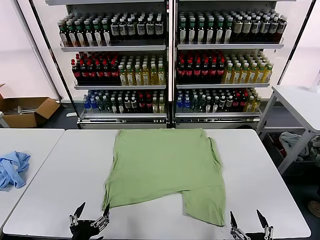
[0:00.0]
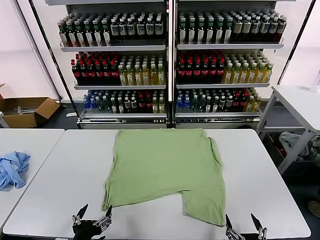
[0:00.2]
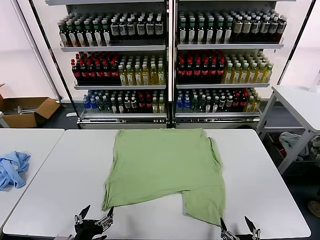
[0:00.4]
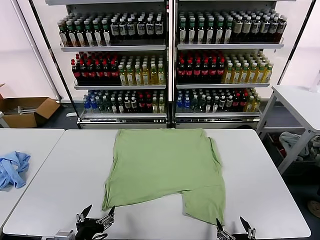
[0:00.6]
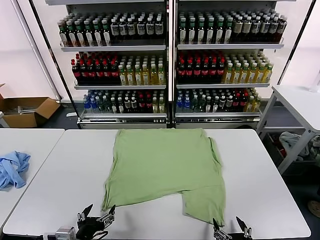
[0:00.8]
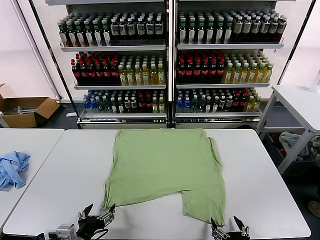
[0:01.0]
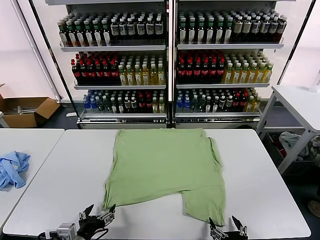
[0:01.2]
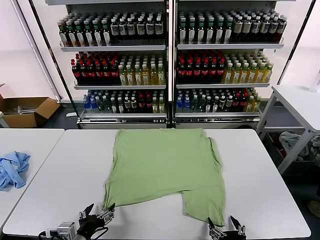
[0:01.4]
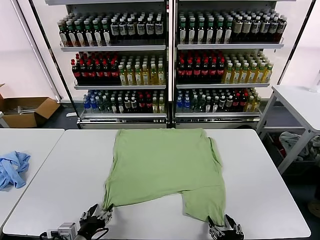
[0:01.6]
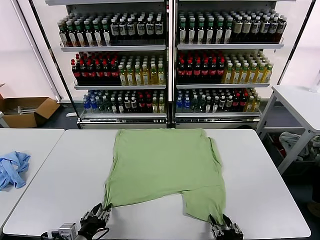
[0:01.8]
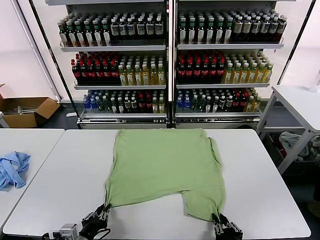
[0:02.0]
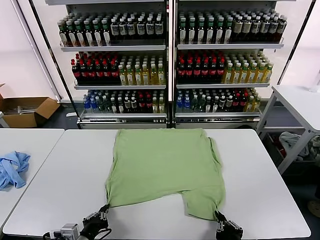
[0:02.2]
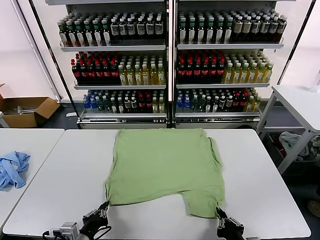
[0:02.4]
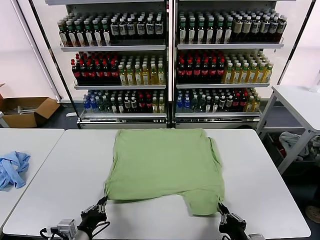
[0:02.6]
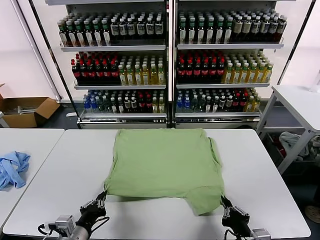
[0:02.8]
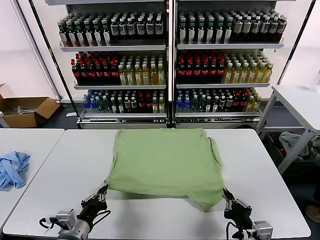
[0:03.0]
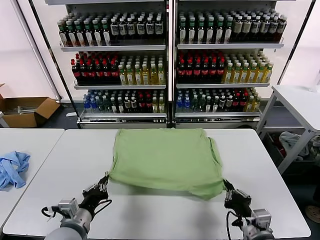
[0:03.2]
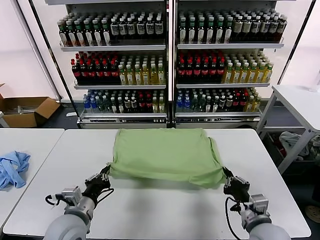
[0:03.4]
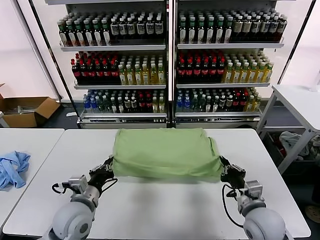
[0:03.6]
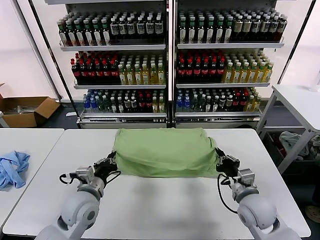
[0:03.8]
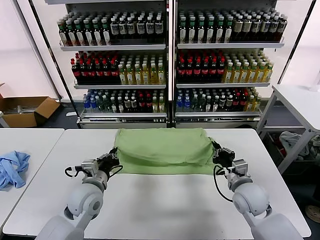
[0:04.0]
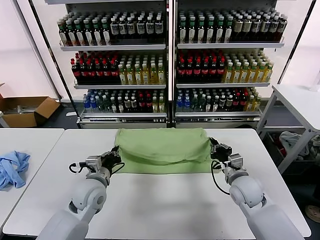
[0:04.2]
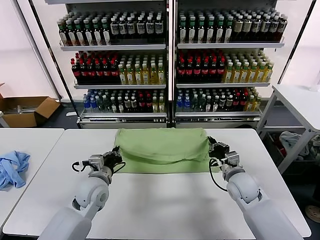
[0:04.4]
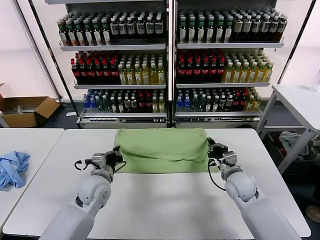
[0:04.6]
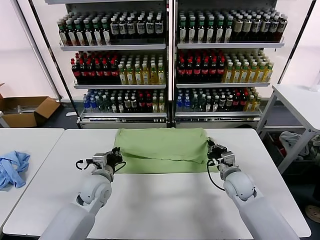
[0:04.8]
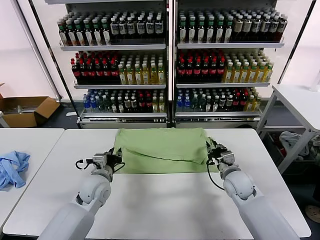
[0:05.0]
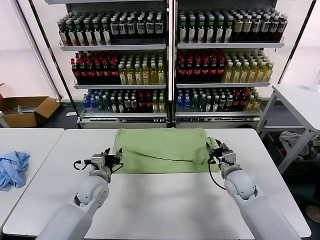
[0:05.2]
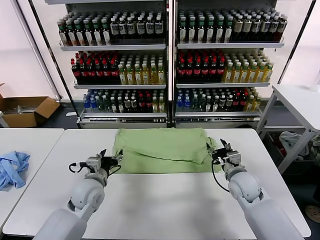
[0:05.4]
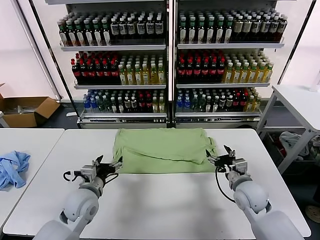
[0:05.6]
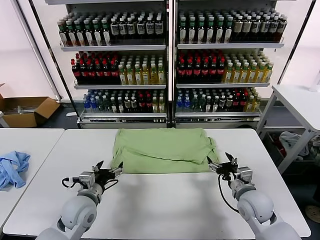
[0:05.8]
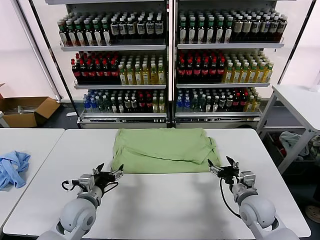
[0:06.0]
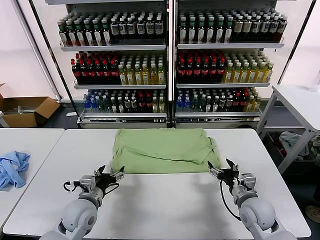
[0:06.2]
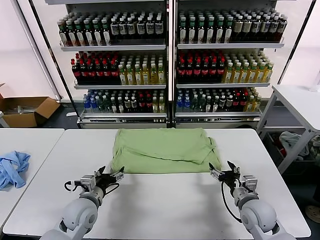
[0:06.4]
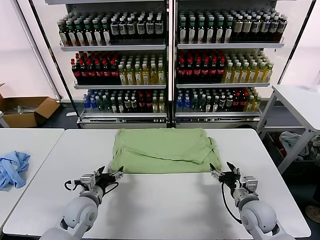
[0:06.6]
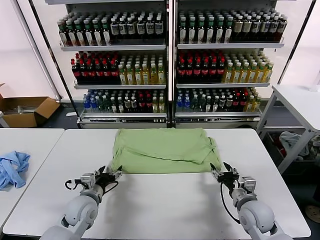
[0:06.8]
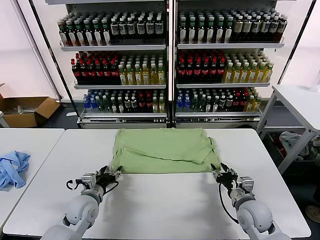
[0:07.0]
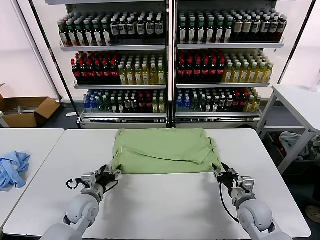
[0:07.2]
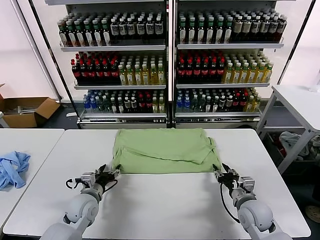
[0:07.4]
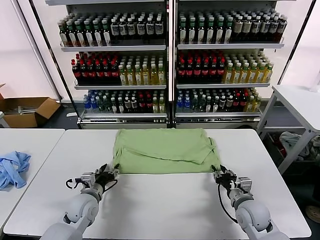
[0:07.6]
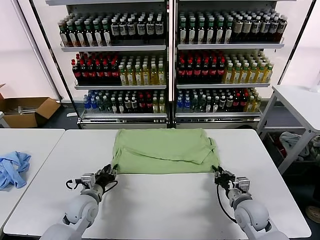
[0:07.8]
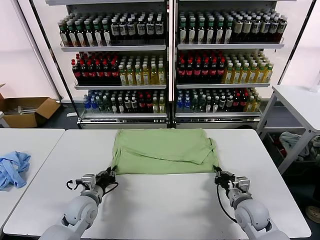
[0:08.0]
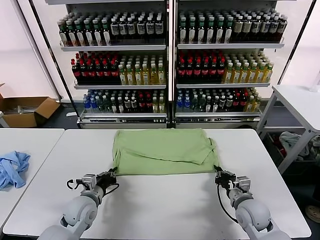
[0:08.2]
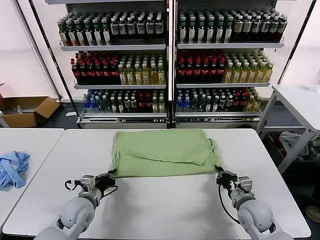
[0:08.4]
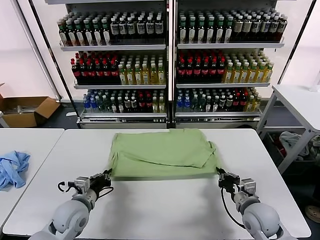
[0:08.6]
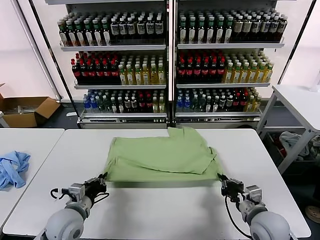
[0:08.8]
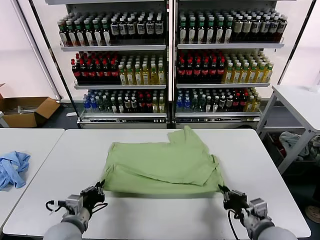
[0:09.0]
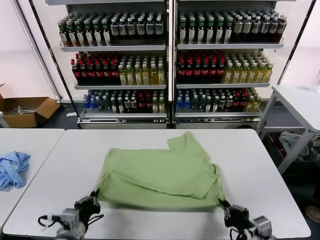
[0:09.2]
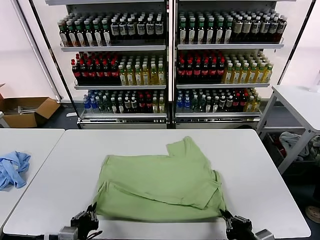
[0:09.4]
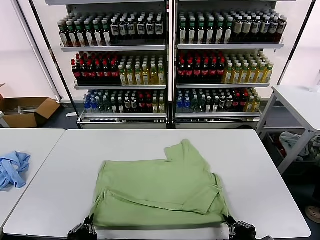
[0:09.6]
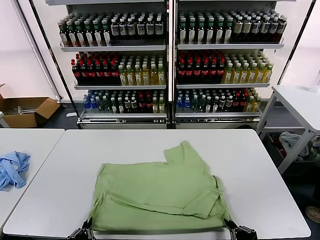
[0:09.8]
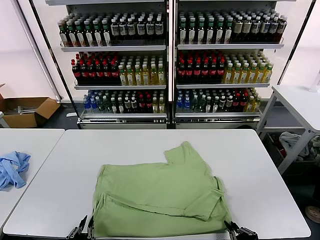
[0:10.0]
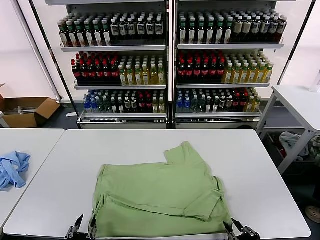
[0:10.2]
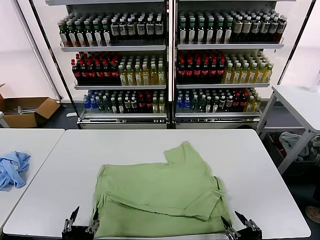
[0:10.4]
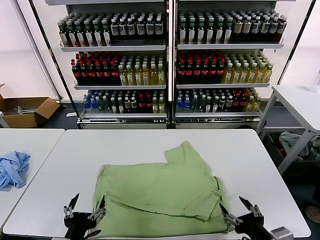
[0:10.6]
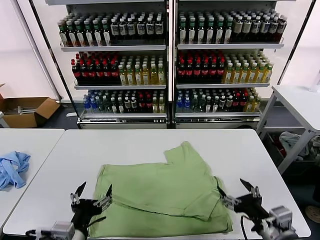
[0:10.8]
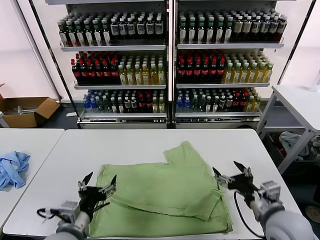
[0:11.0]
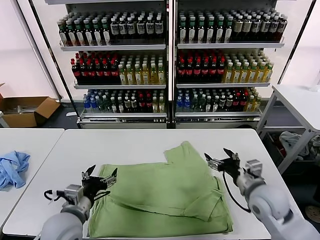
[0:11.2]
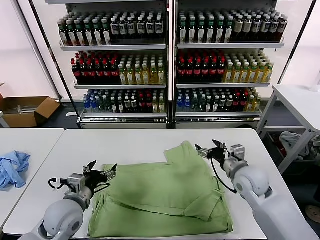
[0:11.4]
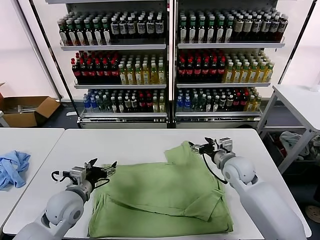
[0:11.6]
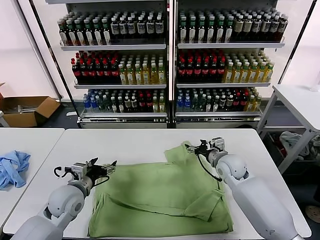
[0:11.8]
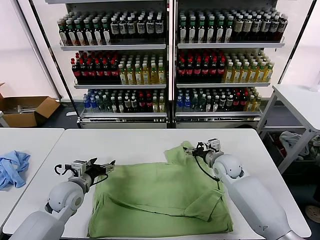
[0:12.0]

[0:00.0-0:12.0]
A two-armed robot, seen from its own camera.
Task of the whole recording: fold and organize the clothes.
Step, 0:00.0 to 0:02.0: use both grippers simultaneously to clamp the lower edge of the clothing fabric.
Step, 0:02.2 to 0:04.8: use both grippers to drag the lower edge of the fabric forward and fold it over the upper edge.
Step, 0:05.2 to 0:10.2: Drag the clothes downward with both gripper.
0:01.6 to 0:03.0: The right gripper shifts roughly 5 cm forward, and closes, while the left gripper closes up.
0:03.0 to 0:04.4: Both grippers travel together forward, about 20 cm.
0:04.4 to 0:06.0: The grippers both shift backward by roughly 5 cm. The left gripper opens up; the right gripper opens.
0:06.0 to 0:07.6: The right gripper closes, while the left gripper ends up some 5 cm from where it was.
0:07.6 to 0:09.0: The grippers both shift backward and upward by approximately 15 cm. The left gripper closes.
0:09.0 to 0:10.4: The right gripper is displaced backward by some 10 cm, and opens its fingers. The left gripper heads backward, covering about 15 cm, and opens its fingers.
0:10.4 to 0:12.0: The two grippers go roughly 30 cm forward.

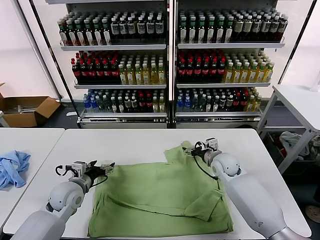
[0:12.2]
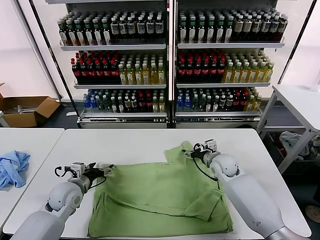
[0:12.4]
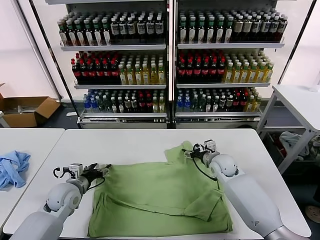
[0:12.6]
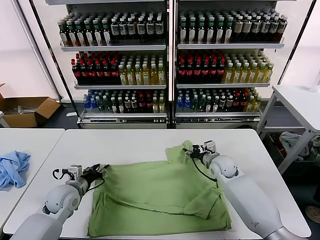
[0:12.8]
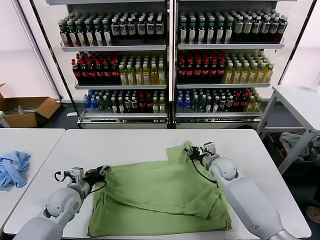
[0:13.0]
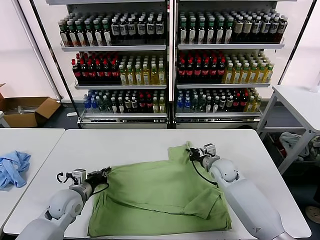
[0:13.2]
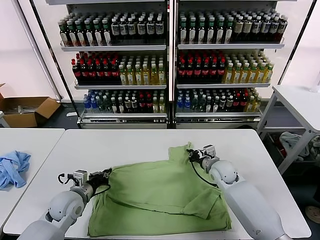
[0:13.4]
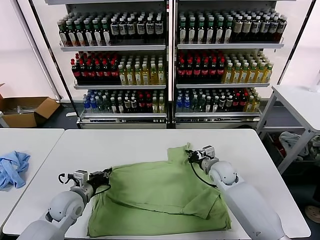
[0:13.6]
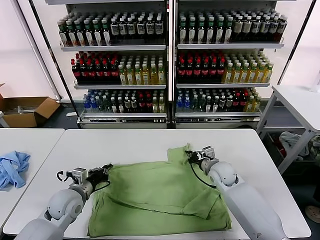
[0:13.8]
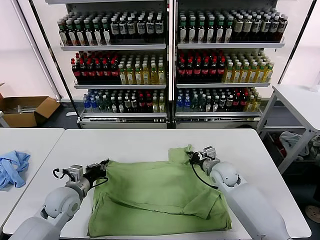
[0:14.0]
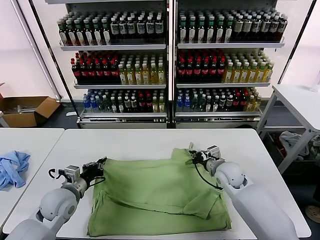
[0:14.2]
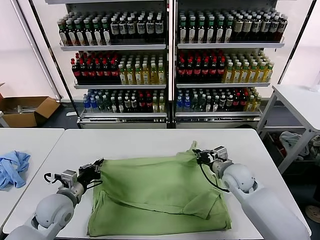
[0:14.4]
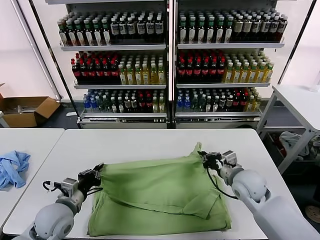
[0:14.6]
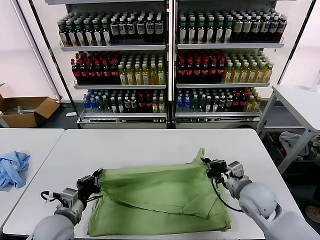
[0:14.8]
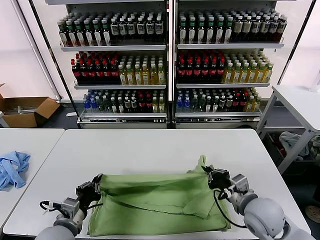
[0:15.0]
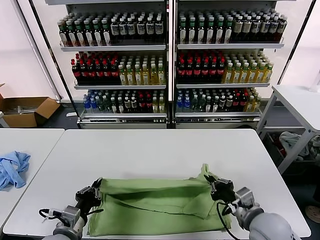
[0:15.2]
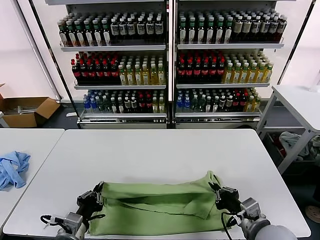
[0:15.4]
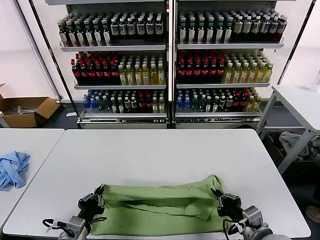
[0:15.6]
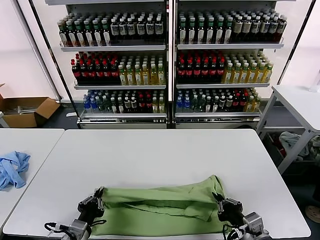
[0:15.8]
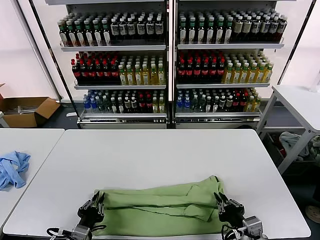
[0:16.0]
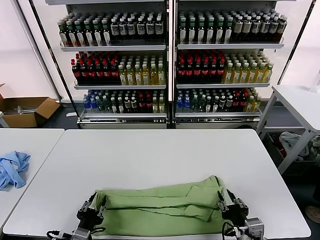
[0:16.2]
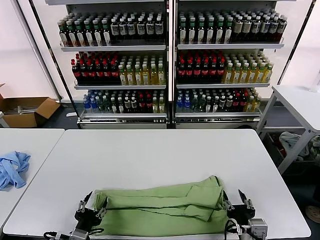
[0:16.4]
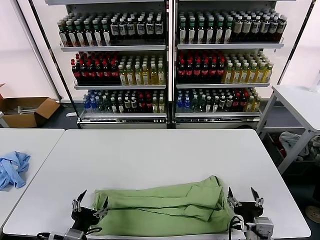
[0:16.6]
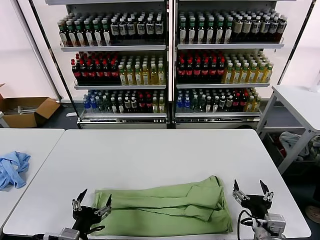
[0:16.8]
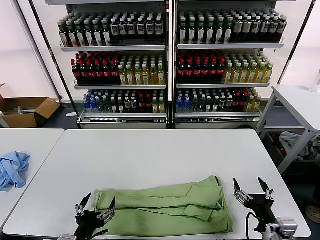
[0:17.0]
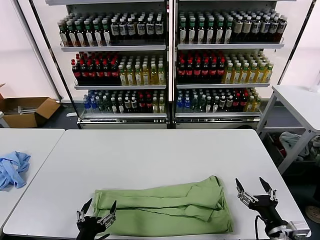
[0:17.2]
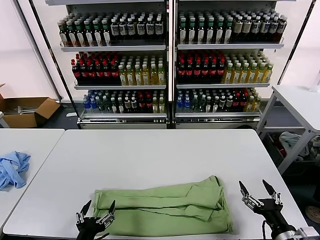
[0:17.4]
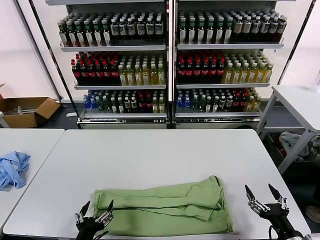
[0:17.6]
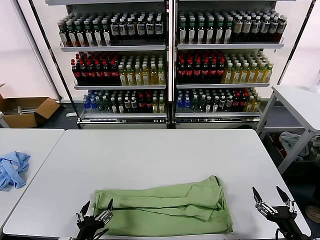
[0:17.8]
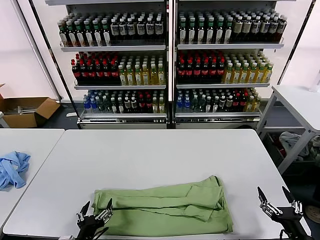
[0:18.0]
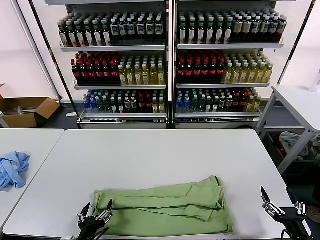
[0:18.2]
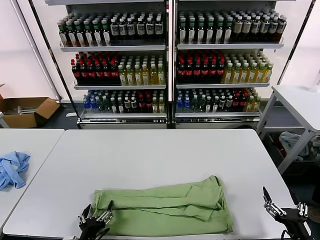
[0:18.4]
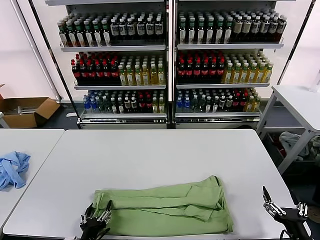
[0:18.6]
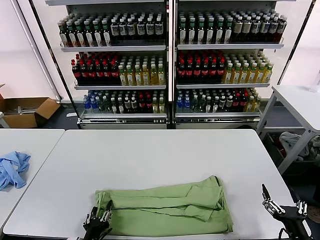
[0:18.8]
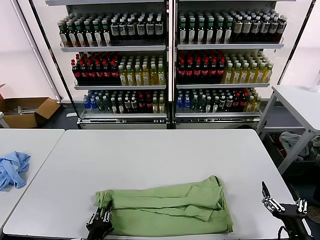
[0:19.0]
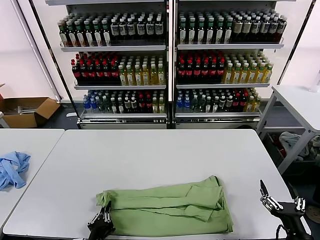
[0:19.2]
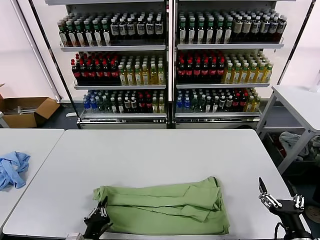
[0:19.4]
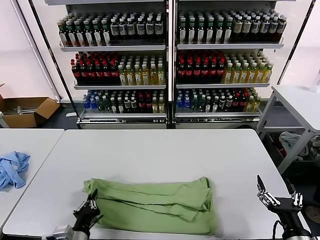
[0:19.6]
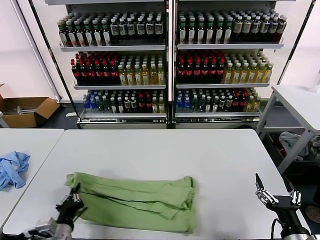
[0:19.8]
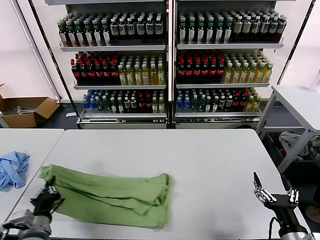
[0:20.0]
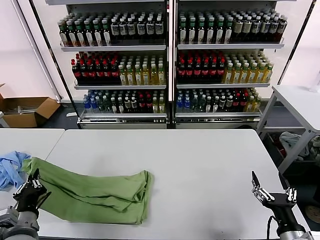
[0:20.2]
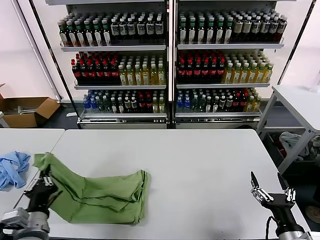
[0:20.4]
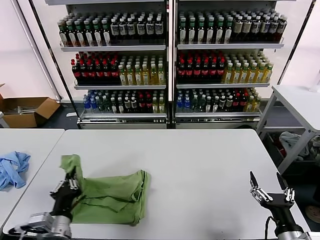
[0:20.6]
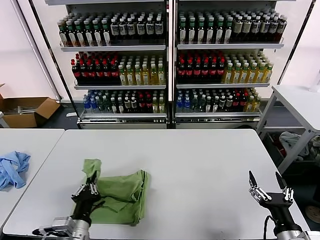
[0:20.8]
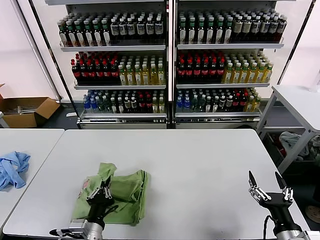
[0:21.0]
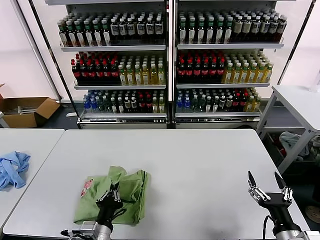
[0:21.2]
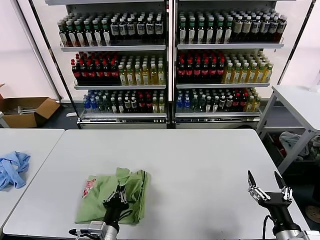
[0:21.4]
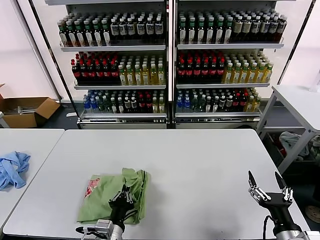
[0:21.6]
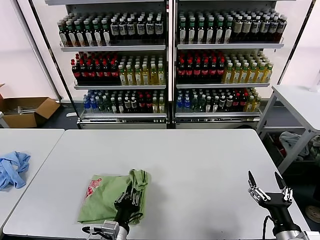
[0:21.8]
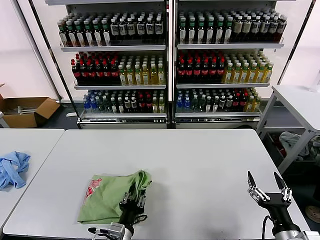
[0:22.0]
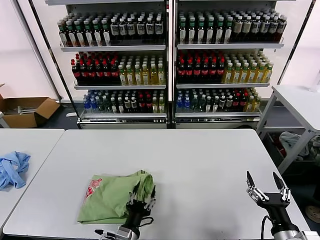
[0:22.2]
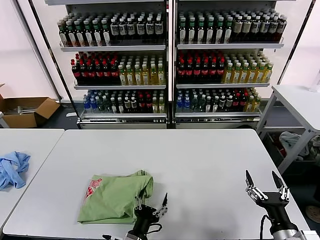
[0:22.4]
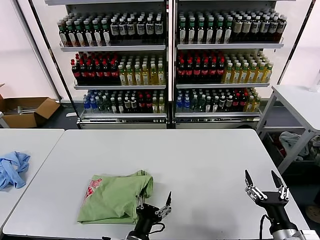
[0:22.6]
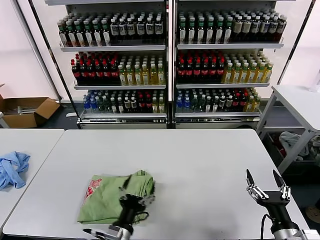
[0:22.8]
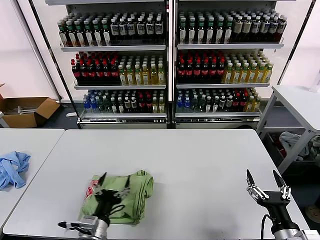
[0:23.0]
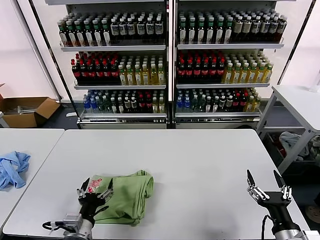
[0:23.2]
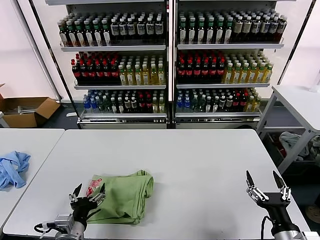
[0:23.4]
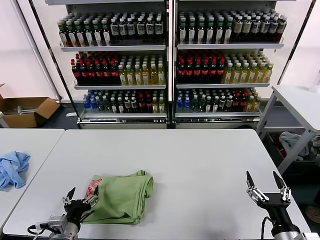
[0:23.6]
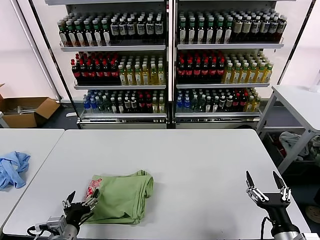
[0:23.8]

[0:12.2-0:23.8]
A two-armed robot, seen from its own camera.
Task of the whole recording: fold and organize the clothes.
Step, 0:13.6 to 0:16.2: use both grippers to drag the upper edge of the fabric backward and fold it over the lower edge.
Step, 0:16.4 to 0:19.2: use the left gripper to clamp the left edge of the fabric.
Step, 0:19.4 to 0:22.2: use the left gripper to drag the left edge of the fabric to the left and folds it over the right edge.
0:12.2 to 0:13.6: The left gripper closes up. Meanwhile the right gripper closes up.
0:13.6 to 0:15.0: The right gripper goes some 20 cm backward and upward. Meanwhile the left gripper heads backward, covering about 10 cm.
0:15.0 to 0:16.6: Both grippers move backward, roughly 10 cm. The left gripper opens its fingers, while the right gripper opens up.
0:16.6 to 0:18.0: The right gripper heads to the right and backward, covering some 15 cm.
0:18.0 to 0:19.4: The left gripper closes.
0:19.4 to 0:21.0: The left gripper shifts approximately 5 cm upward, and moves approximately 10 cm to the left and comes back.
0:21.0 to 0:22.4: The left gripper goes roughly 10 cm to the right and downward, and opens.
0:22.4 to 0:23.8: The left gripper goes approximately 20 cm to the left.
